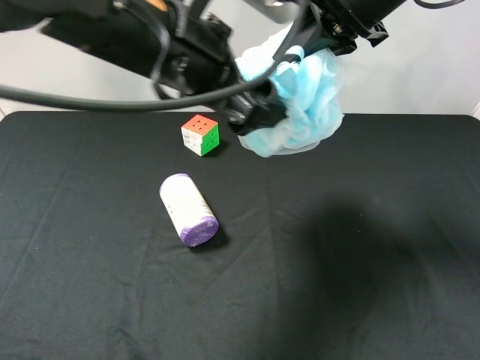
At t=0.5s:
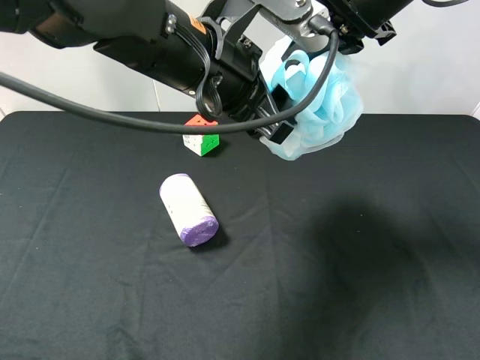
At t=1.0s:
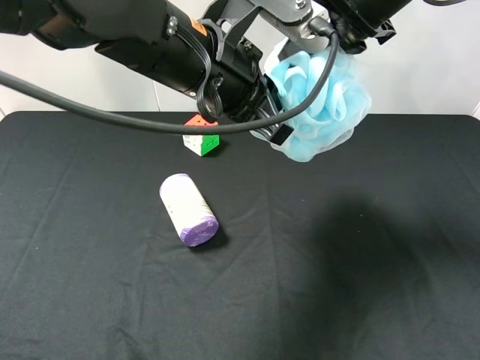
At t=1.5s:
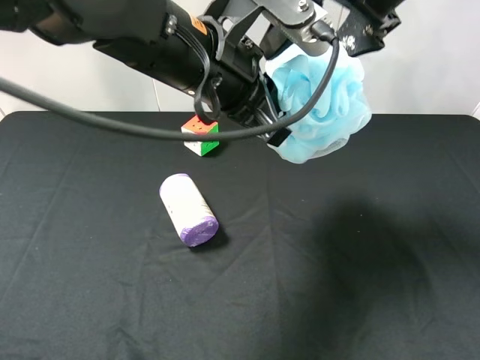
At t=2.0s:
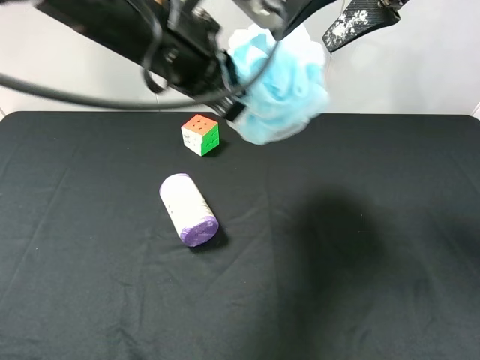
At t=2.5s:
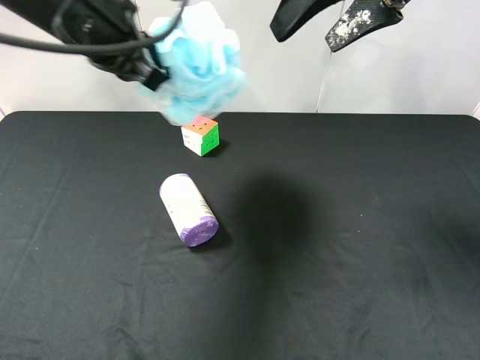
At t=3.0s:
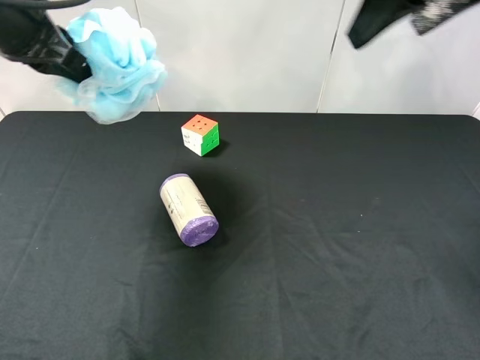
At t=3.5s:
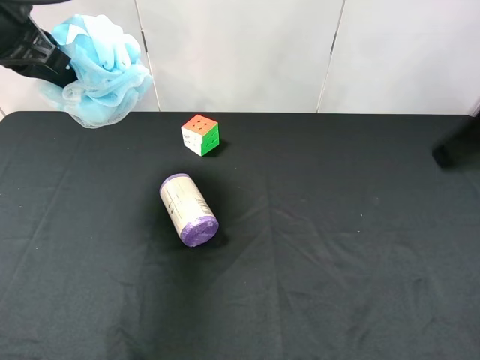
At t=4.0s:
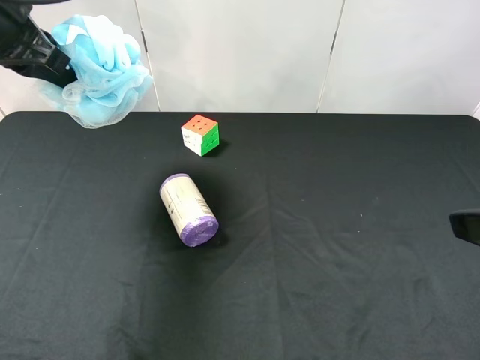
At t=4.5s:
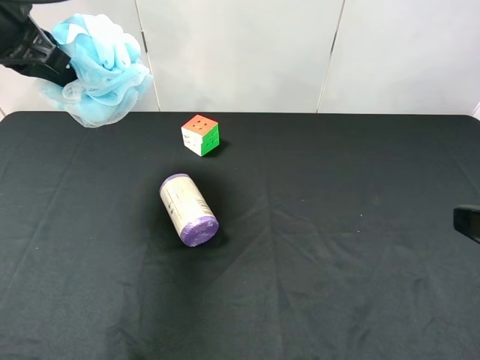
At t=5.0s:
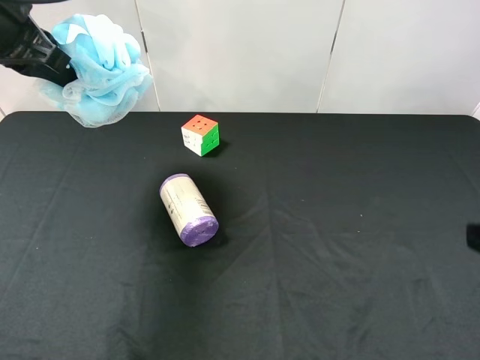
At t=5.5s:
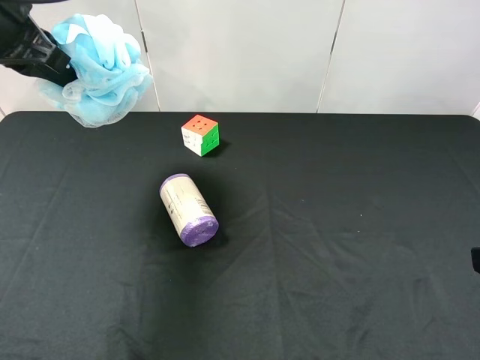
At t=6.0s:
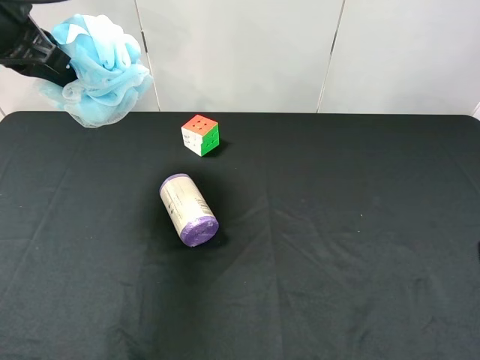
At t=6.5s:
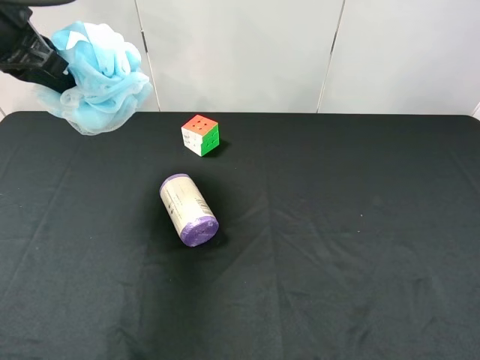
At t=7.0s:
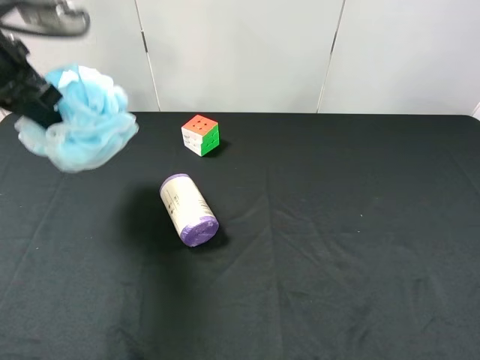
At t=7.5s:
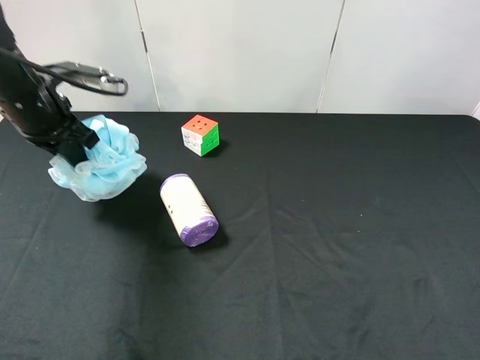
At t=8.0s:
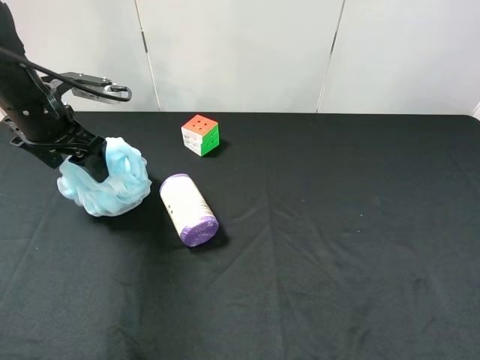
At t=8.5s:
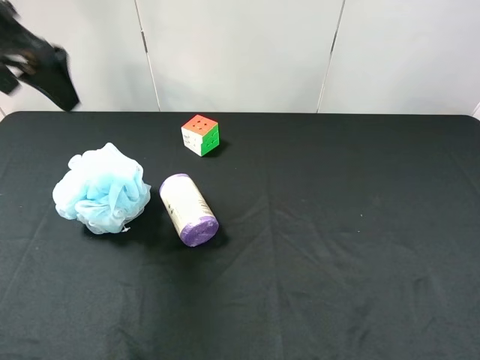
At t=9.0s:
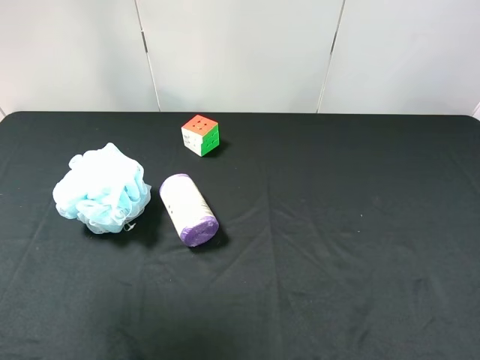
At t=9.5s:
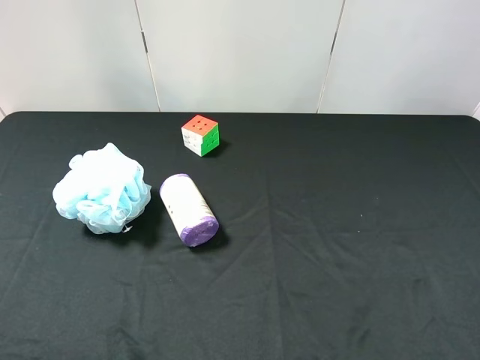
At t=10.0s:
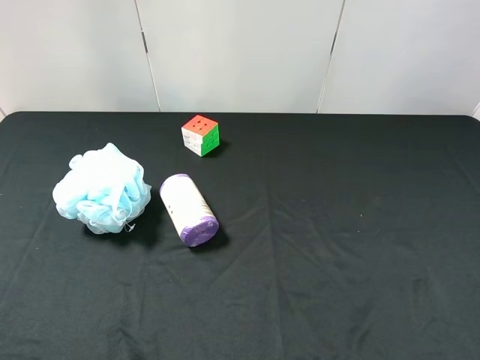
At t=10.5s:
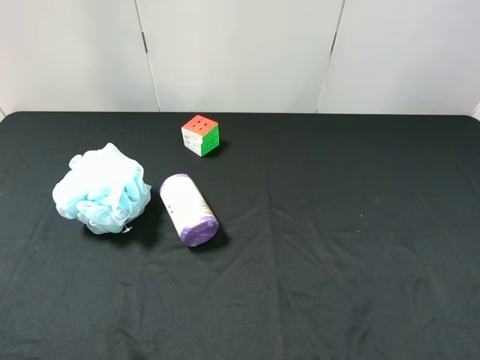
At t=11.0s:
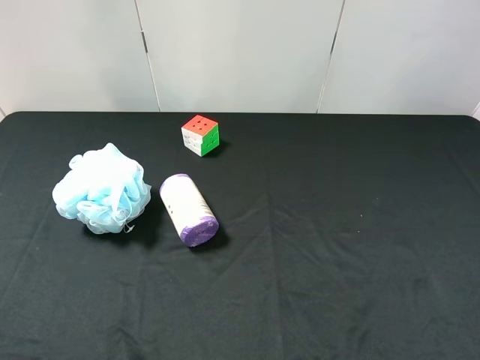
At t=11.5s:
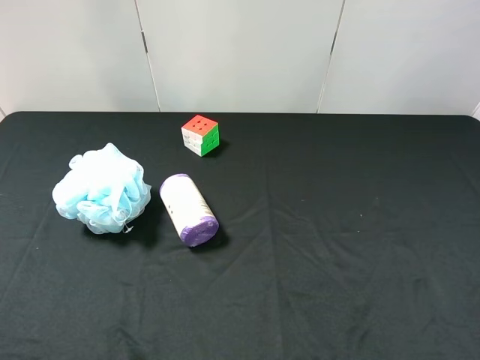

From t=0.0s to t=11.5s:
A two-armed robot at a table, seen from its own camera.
Task of the whole recording: use the right gripper to pick up the item and transfer it from the right gripper to the left gripper.
Step, from t=2.0s to t=8.0s: The left gripper places shower sphere on the left side of the table.
From t=0.0s to t=2.0s: The left gripper closes its fingers. The right gripper opens its fingers.
From t=2.0s to t=4.0s: The right gripper goes some 25 cm backward, to the right and downward. Meanwhile the left gripper is displaced to the left by roughly 15 cm.
From t=6.0s to t=7.5s: The left gripper heads downward, covering approximately 10 cm.
From t=7.5s to t=9.5s: The left gripper moves backward and upward, roughly 35 cm, and opens.
